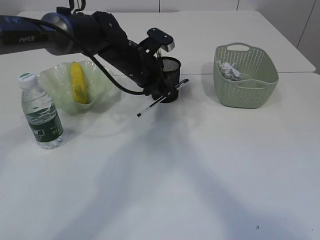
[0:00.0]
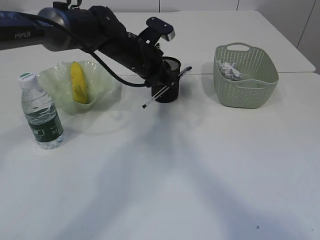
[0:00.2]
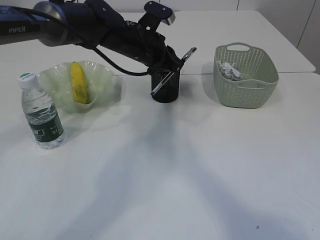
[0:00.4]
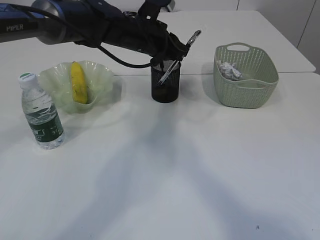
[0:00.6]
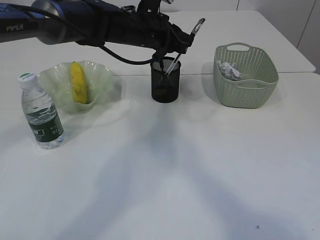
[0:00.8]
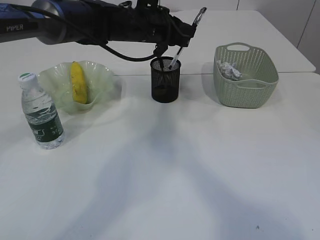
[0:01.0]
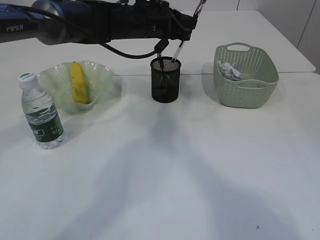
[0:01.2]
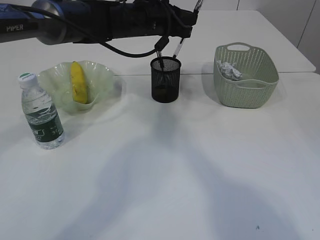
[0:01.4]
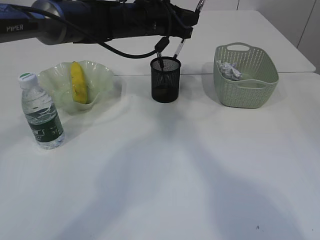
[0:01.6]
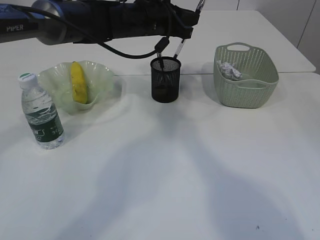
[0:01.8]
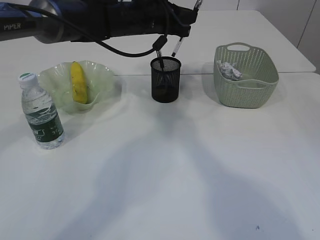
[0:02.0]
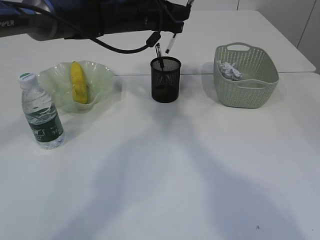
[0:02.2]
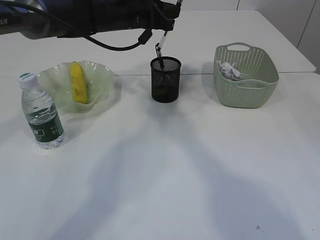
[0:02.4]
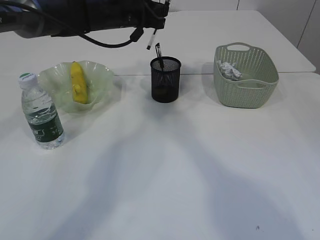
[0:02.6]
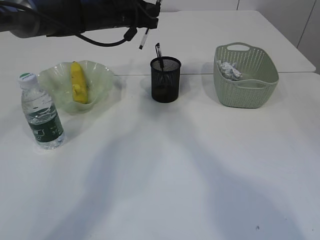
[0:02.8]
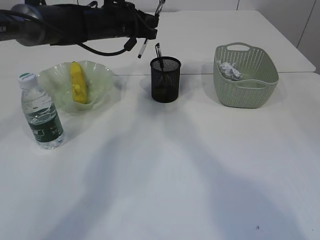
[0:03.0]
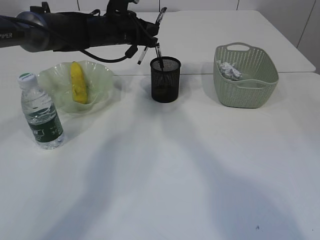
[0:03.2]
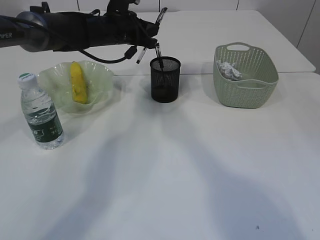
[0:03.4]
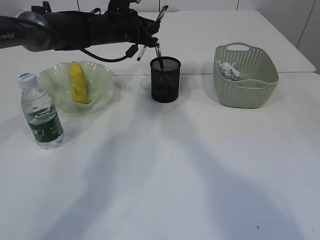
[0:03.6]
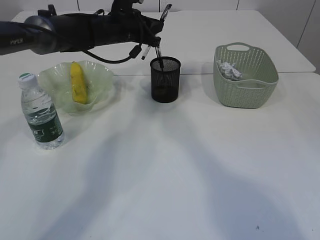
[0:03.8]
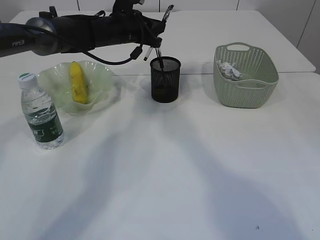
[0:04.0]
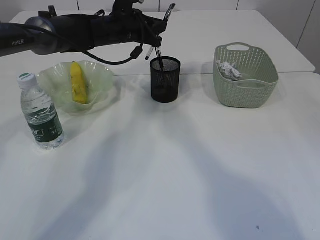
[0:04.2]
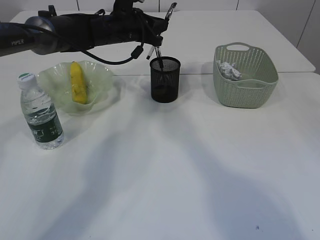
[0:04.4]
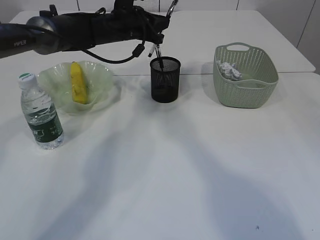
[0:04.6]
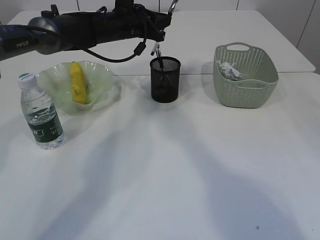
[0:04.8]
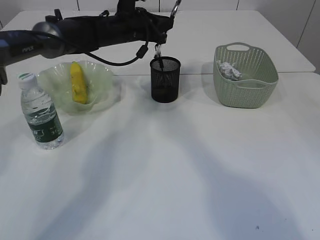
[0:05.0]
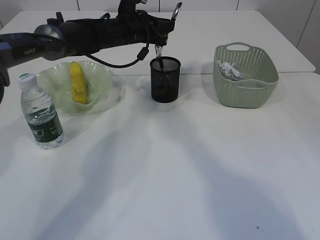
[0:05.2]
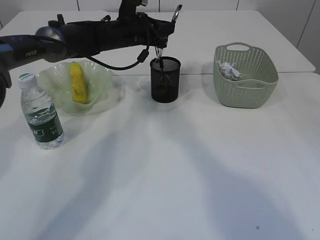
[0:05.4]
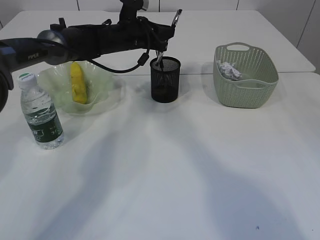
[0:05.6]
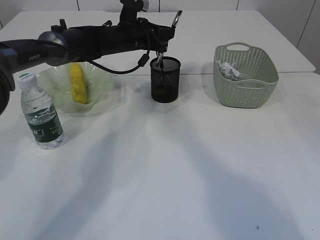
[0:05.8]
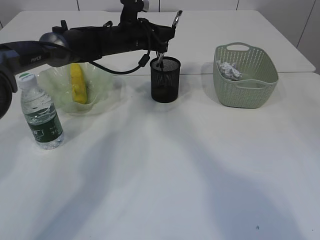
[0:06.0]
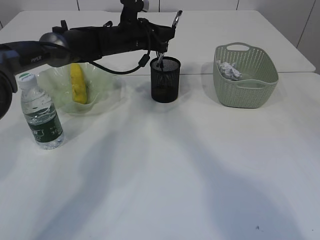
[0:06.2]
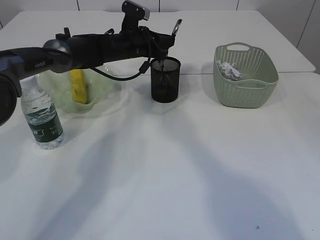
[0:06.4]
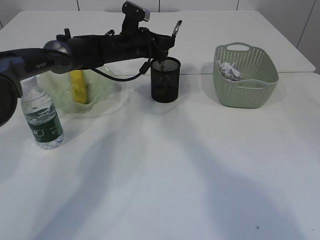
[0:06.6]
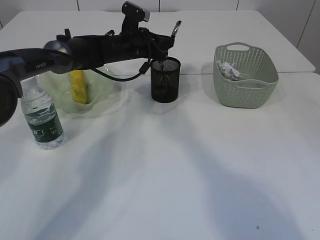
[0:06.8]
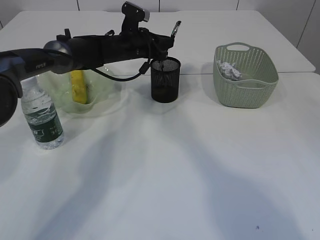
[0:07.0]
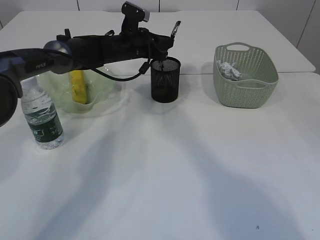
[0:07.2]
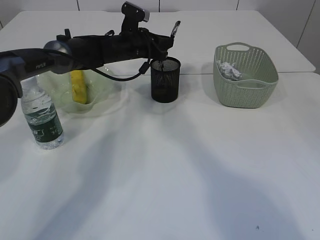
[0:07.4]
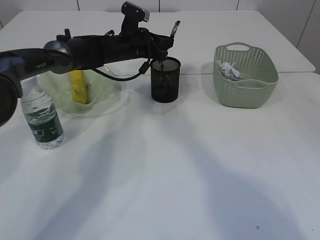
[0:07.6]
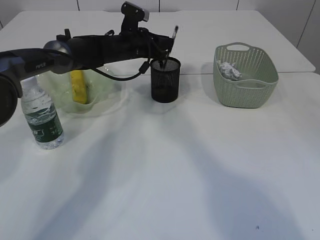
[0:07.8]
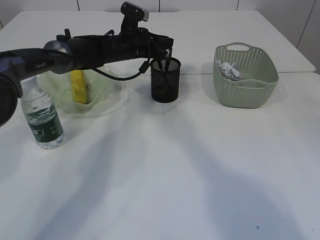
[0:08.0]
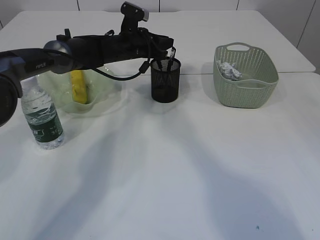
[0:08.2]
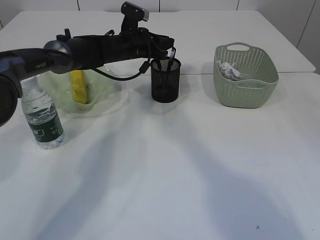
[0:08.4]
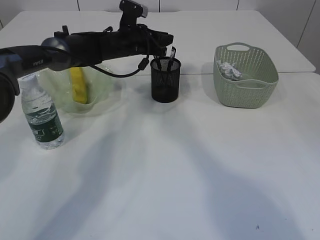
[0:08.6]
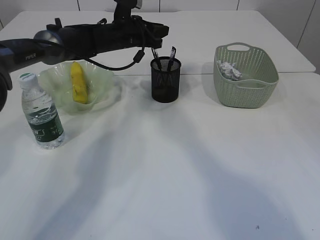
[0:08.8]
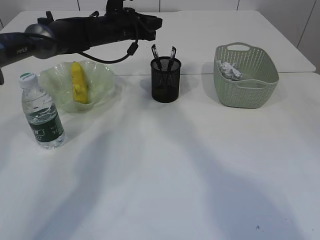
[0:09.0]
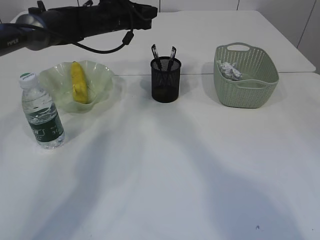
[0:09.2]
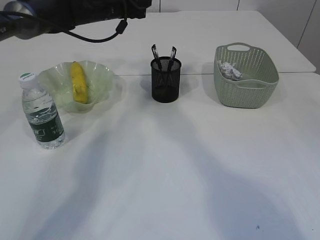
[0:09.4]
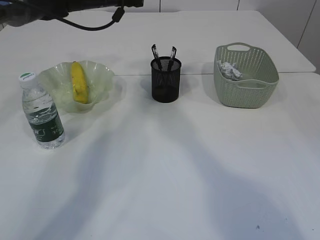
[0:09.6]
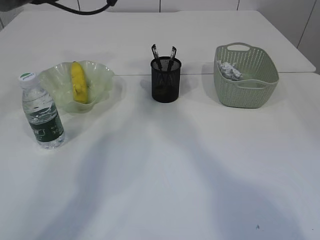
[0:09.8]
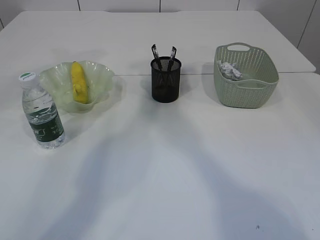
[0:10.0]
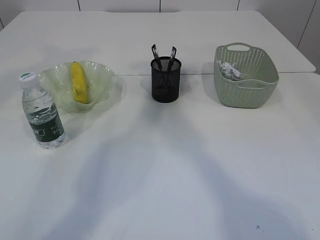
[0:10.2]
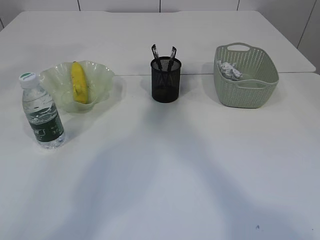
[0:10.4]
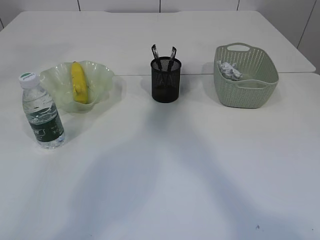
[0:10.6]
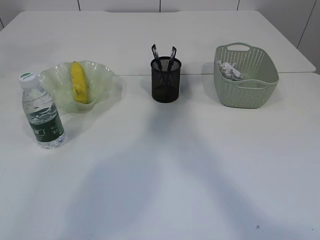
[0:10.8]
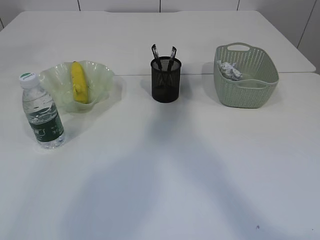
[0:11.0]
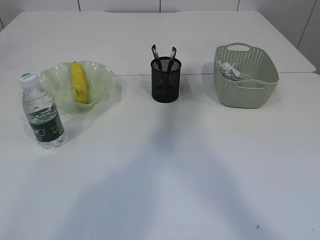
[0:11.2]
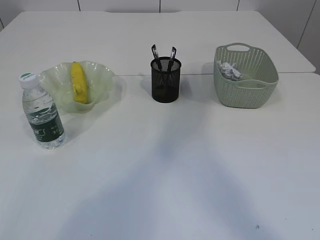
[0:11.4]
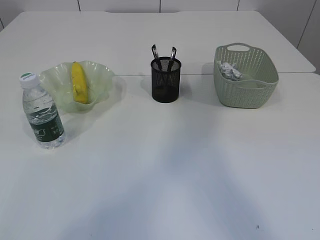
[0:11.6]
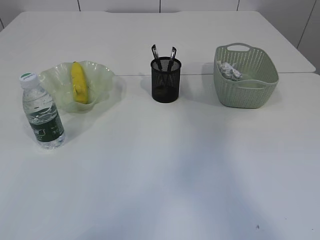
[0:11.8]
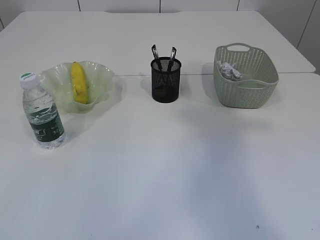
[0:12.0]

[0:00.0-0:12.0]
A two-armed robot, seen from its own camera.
Step, 0.2 to 8.8 s: Place the pen into the pen holder.
0.0 to 1.6 s: The left gripper travels upward by approximately 10 cm. Meanwhile the right gripper goes roughly 10 cm forward and downward.
1.6 to 3.0 s: The left gripper shifts some 5 cm to the left.
3.0 to 6.0 s: The grippers move only a little.
6.0 to 9.0 s: The grippers move only a little.
9.0 to 10.4 s: The left gripper shifts some 25 cm upward. The right gripper goes roughly 10 cm upward and backward.
10.4 to 12.0 s: The left gripper shifts approximately 40 cm backward, upward and to the left, while the right gripper shifts roughly 25 cm backward, upward and to the right.

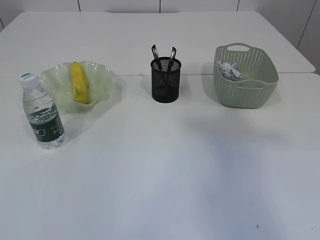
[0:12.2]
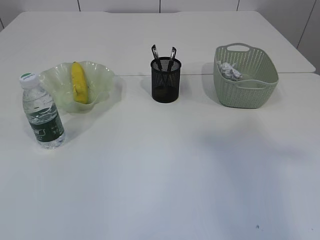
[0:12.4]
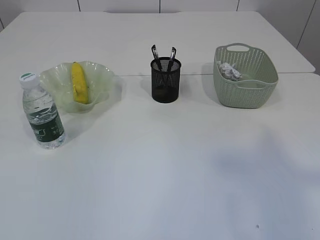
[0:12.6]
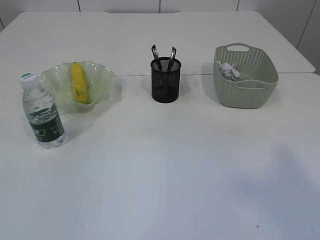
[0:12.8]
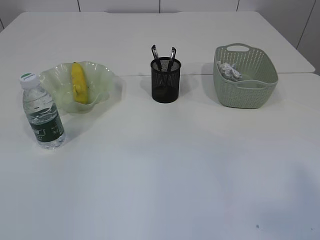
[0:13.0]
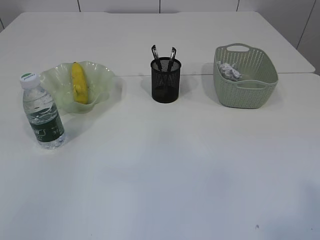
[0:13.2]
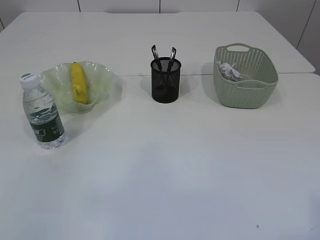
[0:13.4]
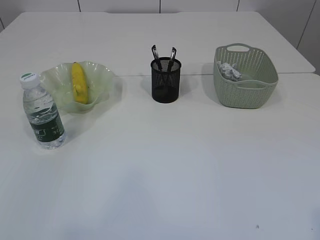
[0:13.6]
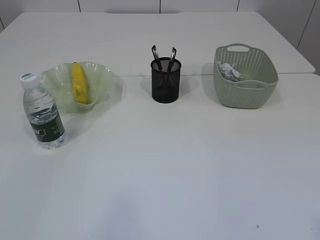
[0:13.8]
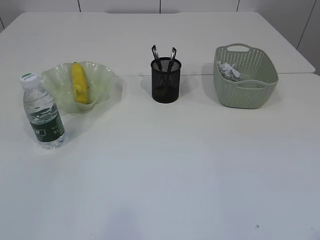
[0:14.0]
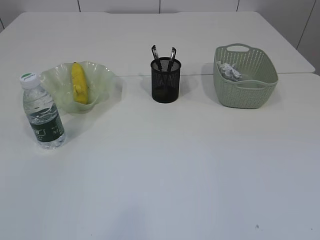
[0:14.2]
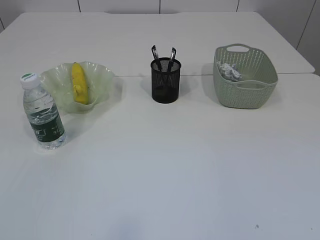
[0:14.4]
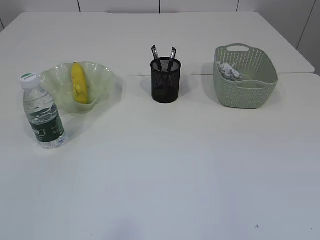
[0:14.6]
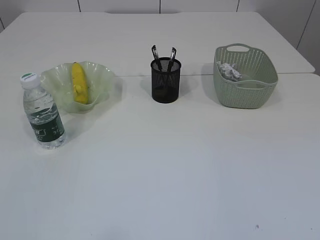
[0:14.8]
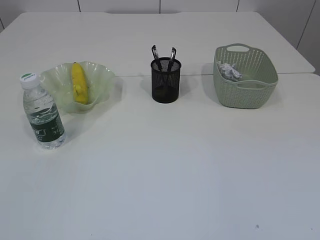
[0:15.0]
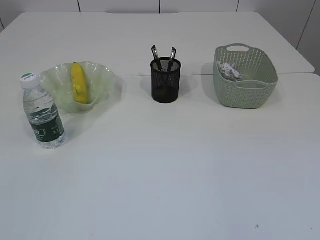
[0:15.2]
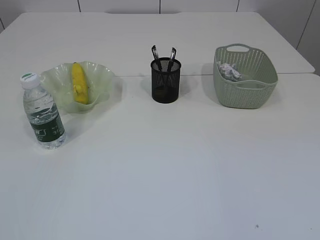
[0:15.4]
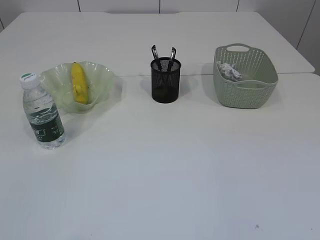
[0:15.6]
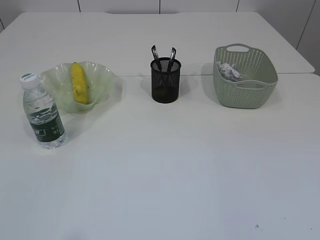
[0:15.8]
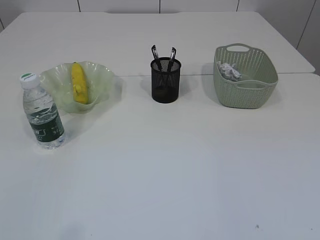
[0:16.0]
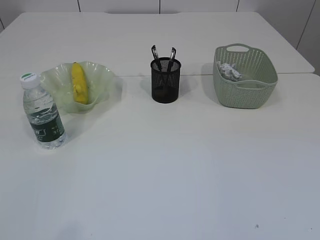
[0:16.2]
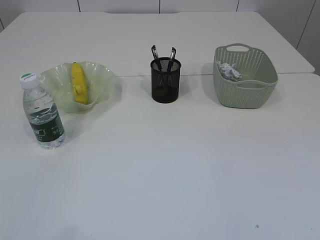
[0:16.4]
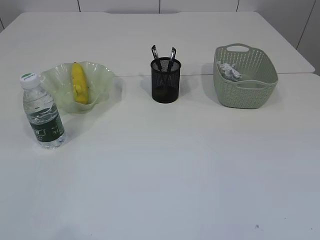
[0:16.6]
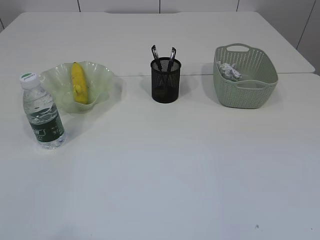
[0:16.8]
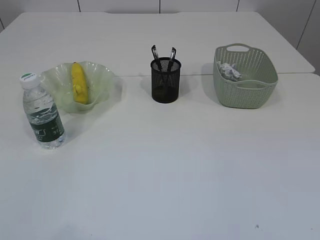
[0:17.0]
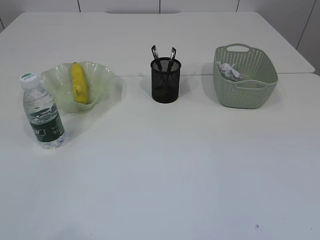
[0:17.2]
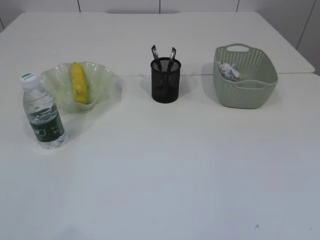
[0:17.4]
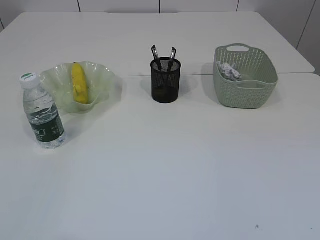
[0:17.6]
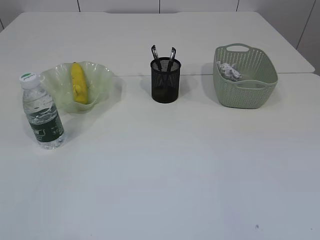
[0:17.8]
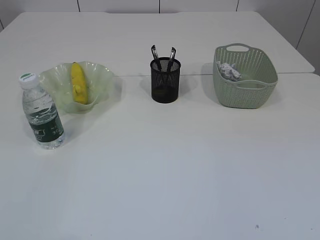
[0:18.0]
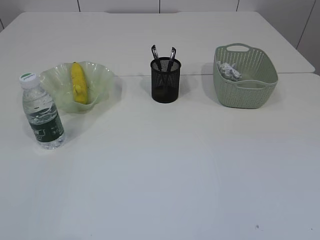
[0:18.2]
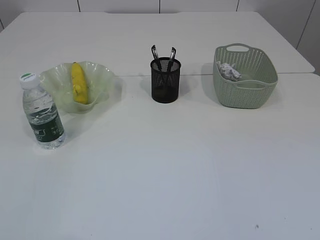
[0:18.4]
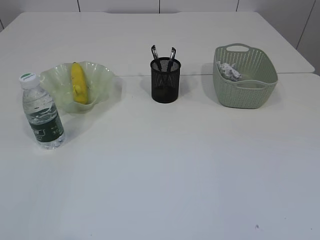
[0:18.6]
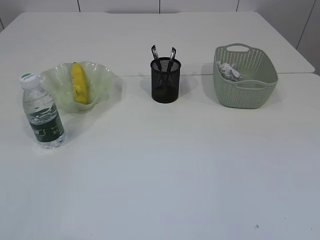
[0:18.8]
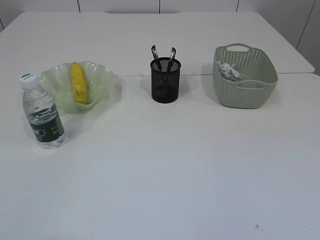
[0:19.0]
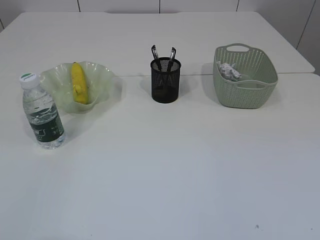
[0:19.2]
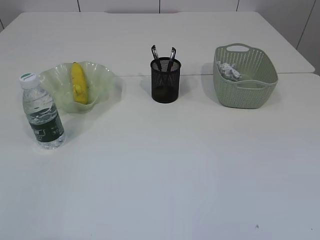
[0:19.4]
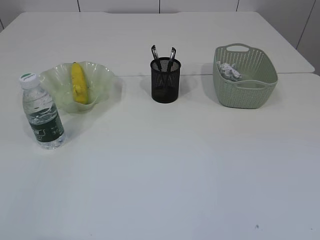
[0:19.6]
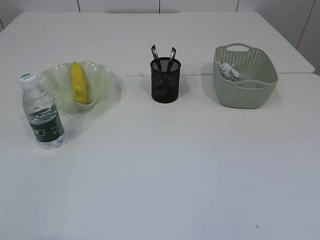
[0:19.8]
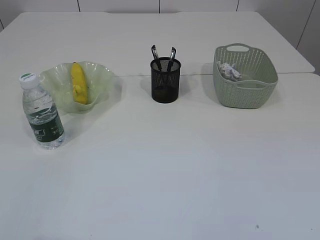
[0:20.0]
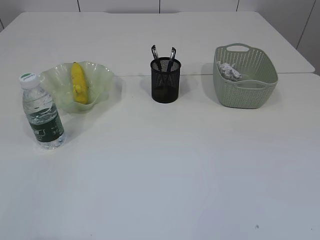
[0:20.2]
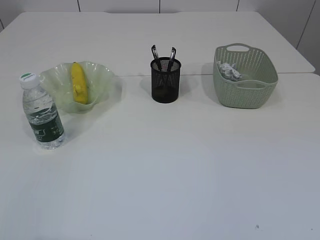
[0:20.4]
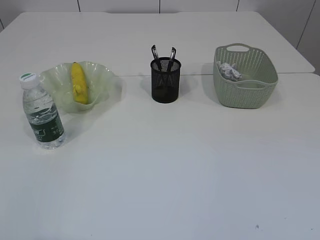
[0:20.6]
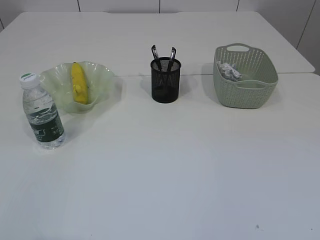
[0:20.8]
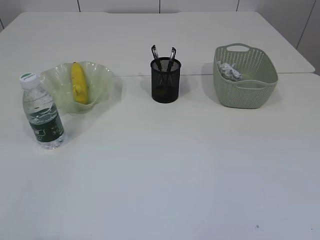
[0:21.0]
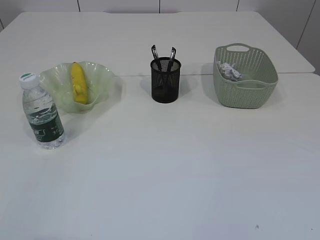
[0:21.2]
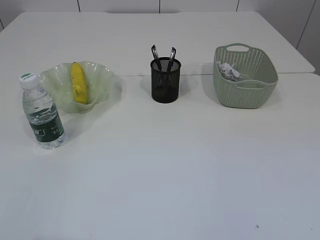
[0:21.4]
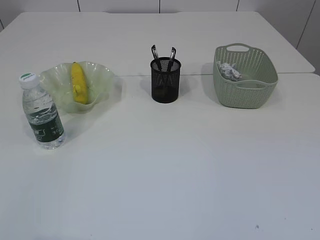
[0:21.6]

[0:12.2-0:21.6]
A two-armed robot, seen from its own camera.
12.2 to 13.8 s: The right gripper is displaced backward and downward by roughly 25 cm.
20.0 to 21.6 s: The two grippers keep their place.

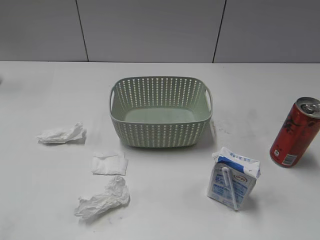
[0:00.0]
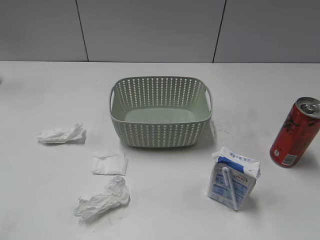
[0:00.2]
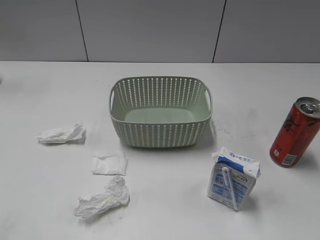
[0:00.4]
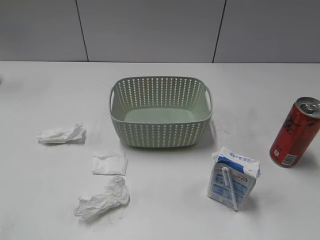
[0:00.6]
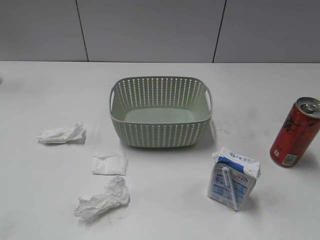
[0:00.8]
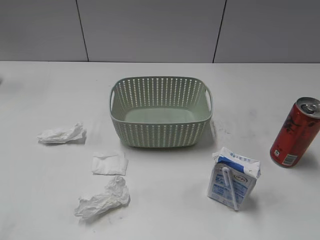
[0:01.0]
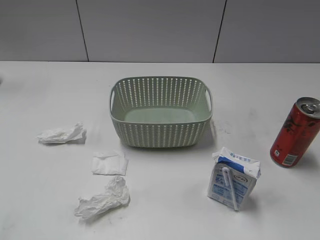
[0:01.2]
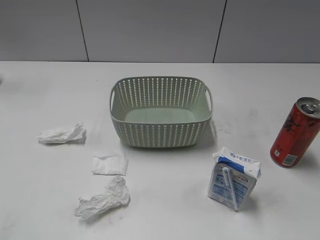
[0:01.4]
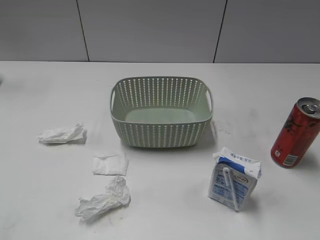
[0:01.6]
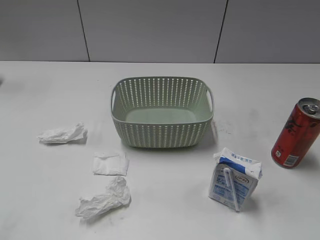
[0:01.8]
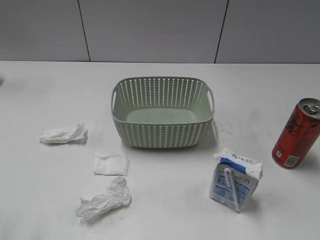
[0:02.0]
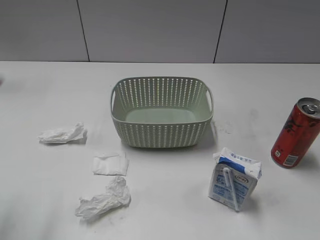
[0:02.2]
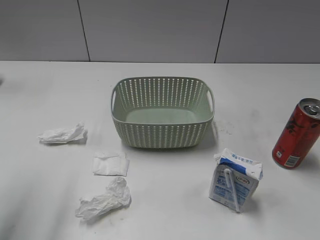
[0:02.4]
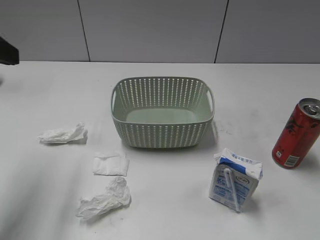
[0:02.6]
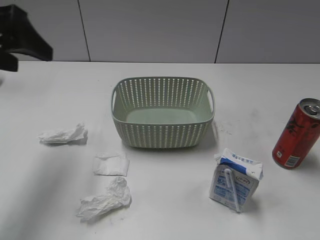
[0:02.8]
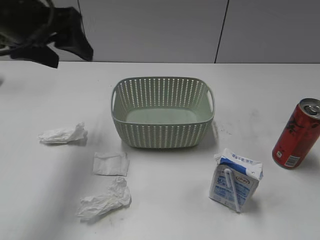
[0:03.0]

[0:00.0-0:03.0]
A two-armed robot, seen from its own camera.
1.6 to 3.0 s: The left gripper heads forward and to the right, covering some 35 cm.
